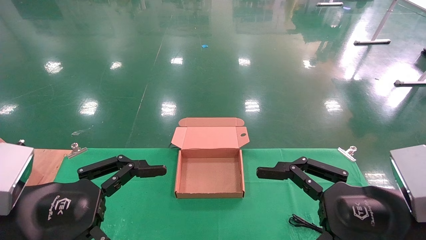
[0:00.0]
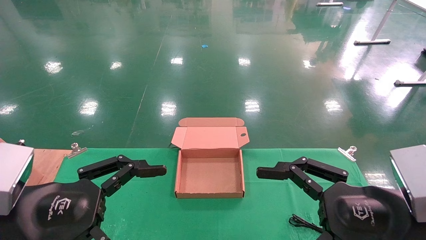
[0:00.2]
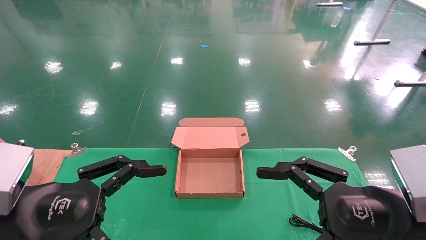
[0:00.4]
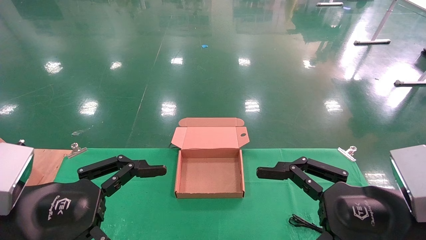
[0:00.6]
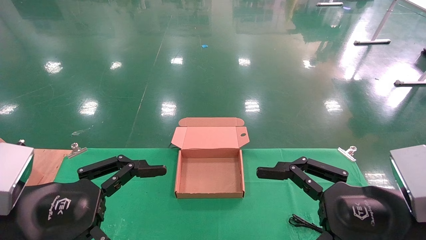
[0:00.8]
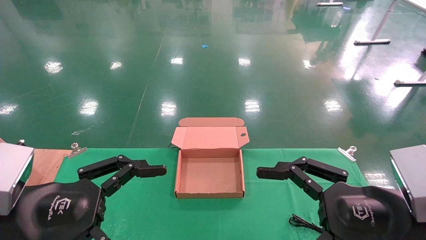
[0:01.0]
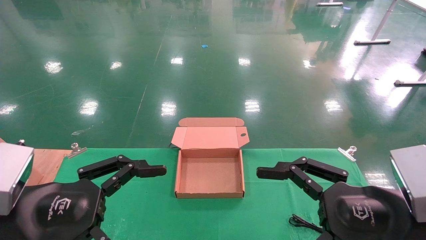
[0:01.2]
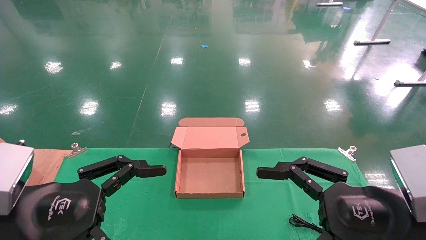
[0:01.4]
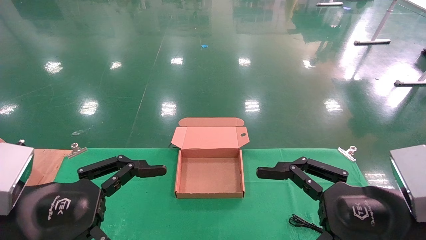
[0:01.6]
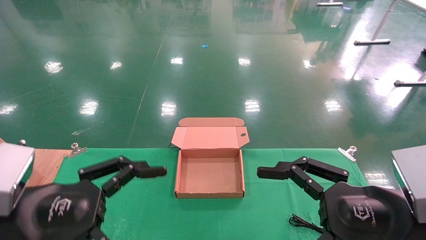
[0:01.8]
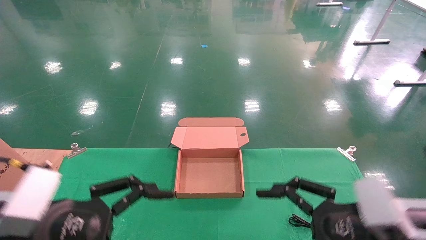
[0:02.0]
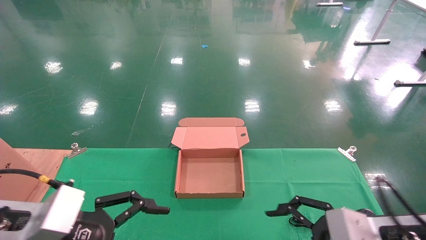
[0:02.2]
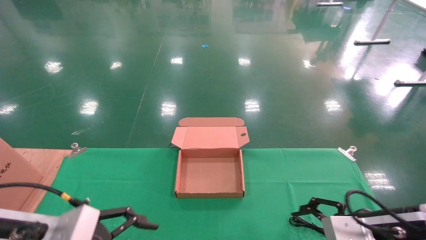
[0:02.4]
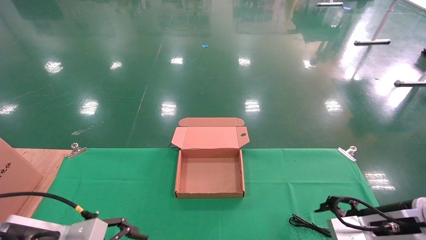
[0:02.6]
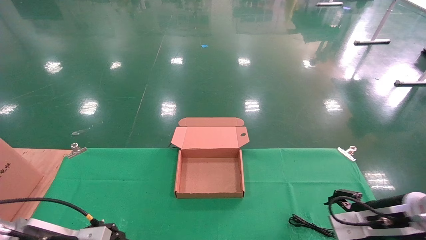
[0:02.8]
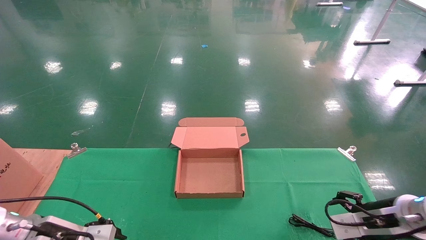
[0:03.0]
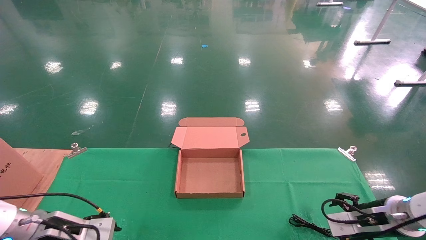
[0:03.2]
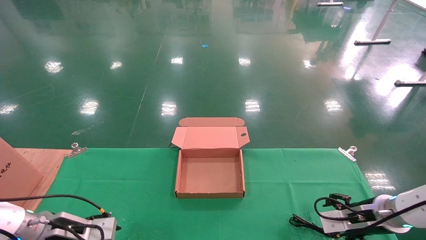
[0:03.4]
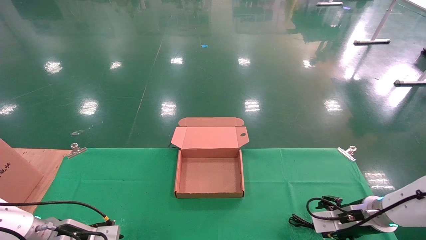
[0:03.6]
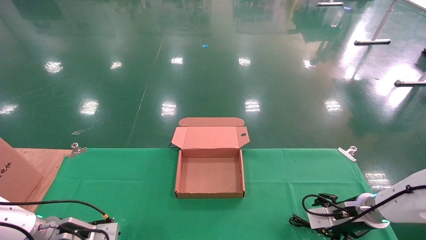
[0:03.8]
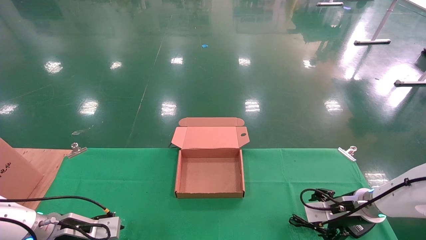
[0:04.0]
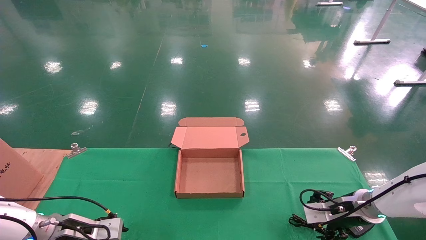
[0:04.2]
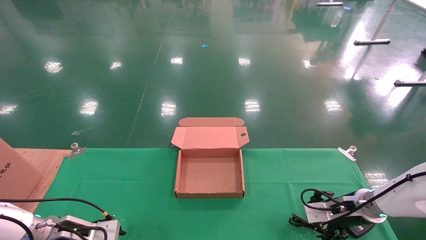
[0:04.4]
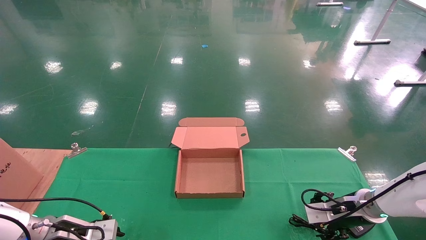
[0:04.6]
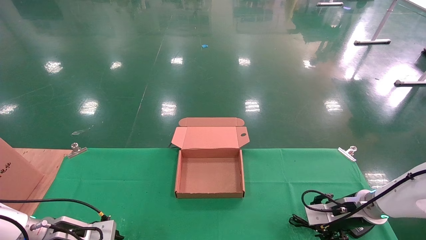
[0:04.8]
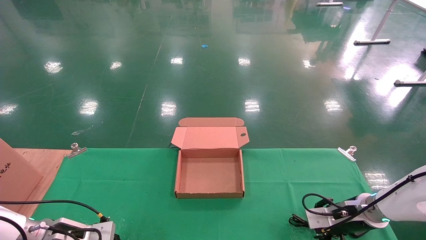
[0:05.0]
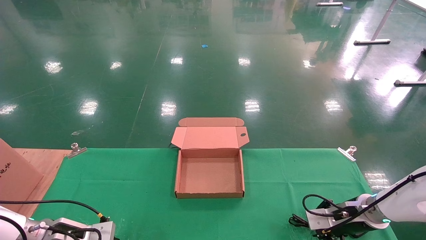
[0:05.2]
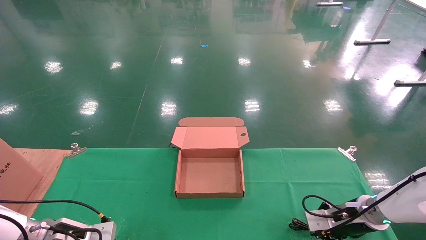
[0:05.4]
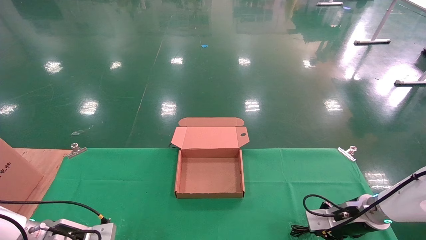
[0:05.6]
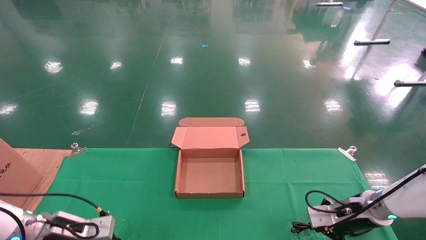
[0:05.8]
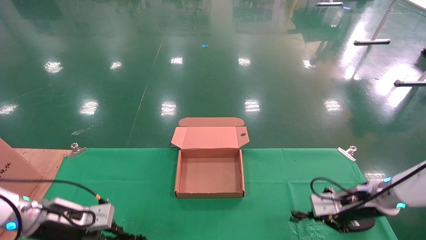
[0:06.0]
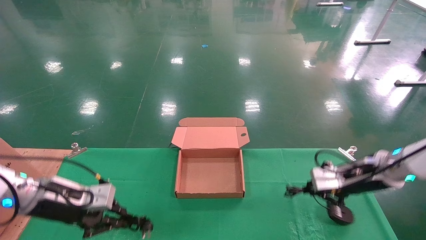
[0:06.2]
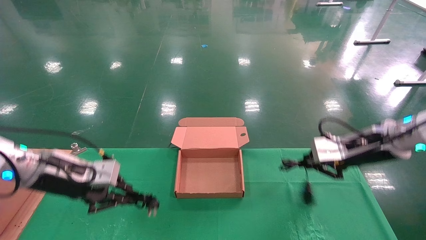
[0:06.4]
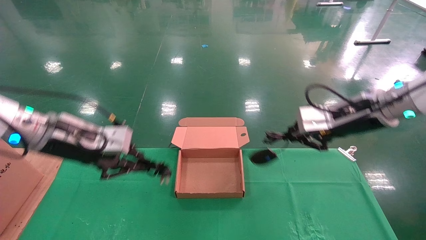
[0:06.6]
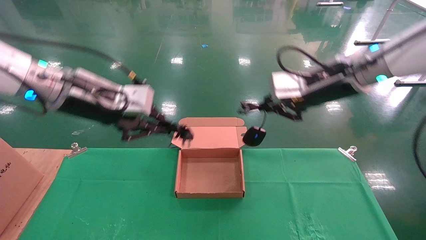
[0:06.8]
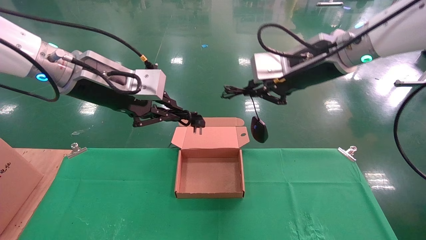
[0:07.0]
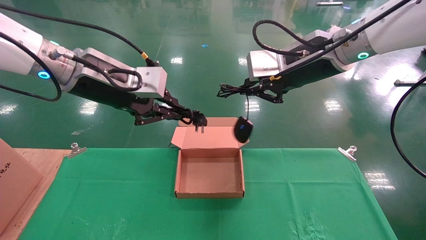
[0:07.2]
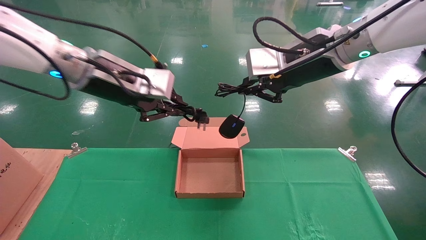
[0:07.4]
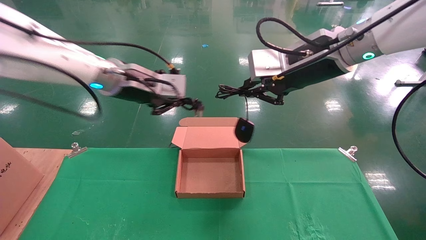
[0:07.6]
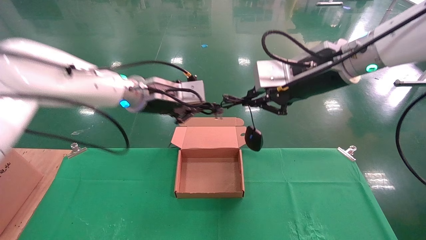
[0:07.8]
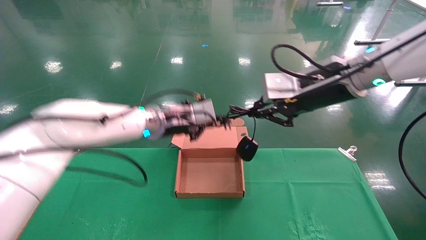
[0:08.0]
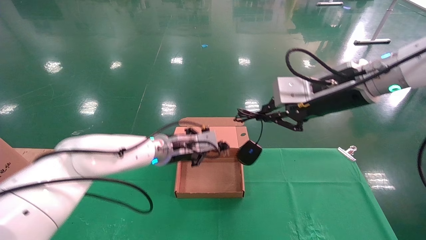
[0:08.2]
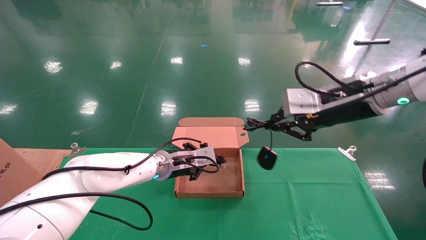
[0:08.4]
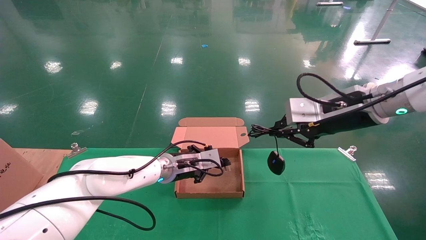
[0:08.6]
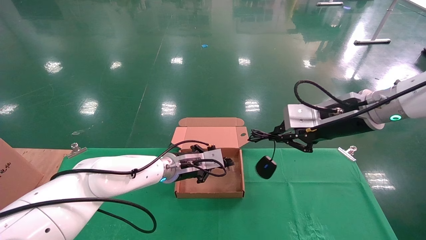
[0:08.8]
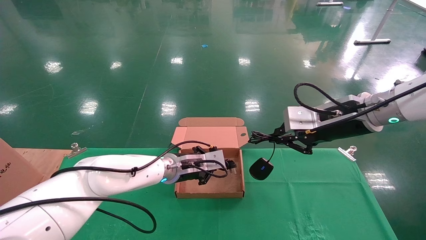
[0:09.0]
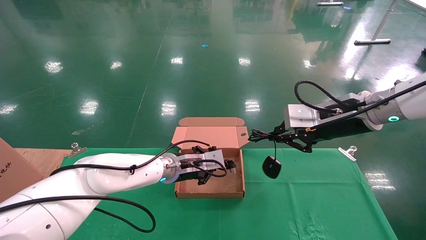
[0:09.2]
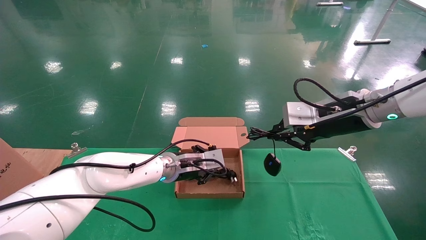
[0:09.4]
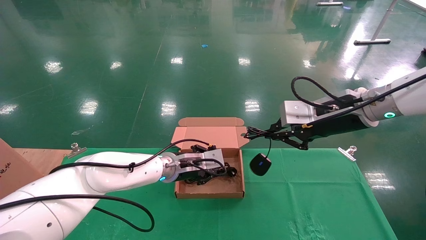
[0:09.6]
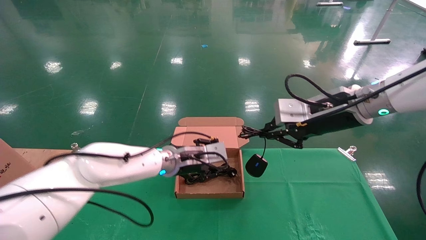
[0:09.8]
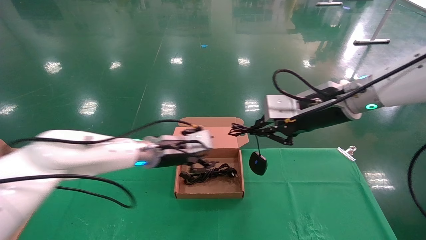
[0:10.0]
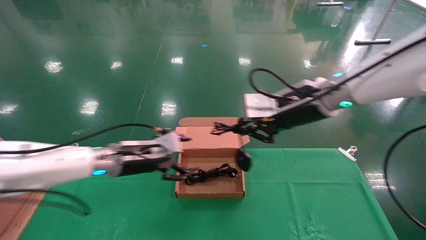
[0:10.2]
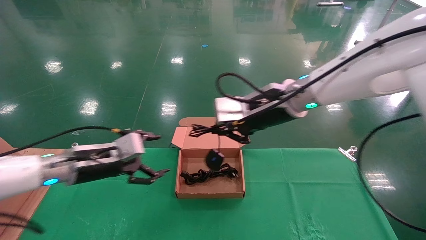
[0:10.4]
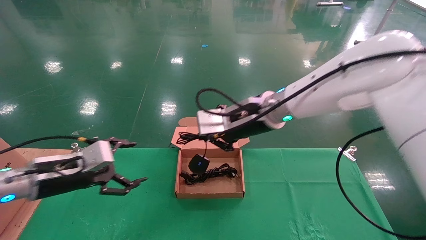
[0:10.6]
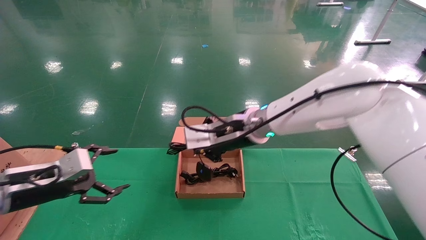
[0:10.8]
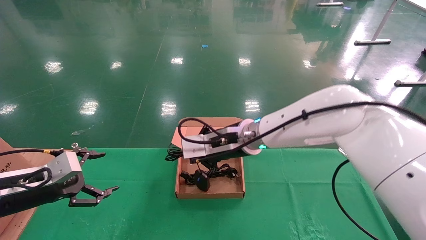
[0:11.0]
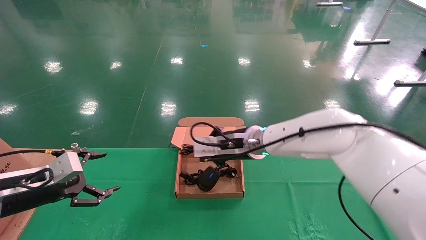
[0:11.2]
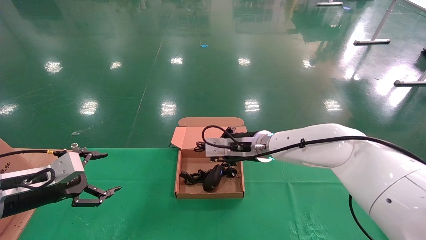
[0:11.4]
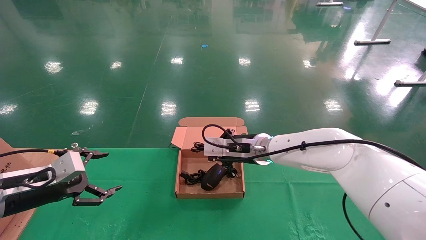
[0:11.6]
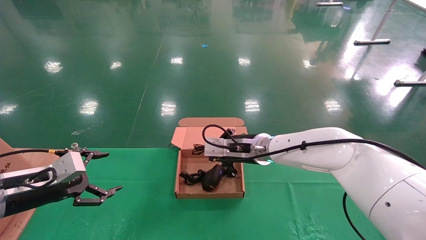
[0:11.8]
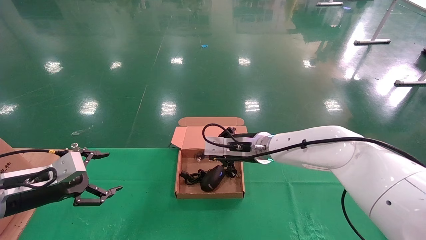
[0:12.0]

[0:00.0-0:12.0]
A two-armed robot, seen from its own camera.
Step, 0:02.4 to 0:06.6: Grab and lift both the mouse and power cord from the accessory packaging area at the same time.
0:00.0 to 0:01.6: The two grippers keep their place.
0:01.6 to 0:03.0: The left gripper shifts about 15 cm downward, forward and to the left; the right gripper shifts approximately 20 cm forward, downward and to the right.
0:03.0 to 0:04.4: The right gripper travels forward by about 10 cm; the left gripper travels forward and downward by roughly 10 cm.
0:04.4 to 0:06.0: The grippers both shift upward by about 5 cm. The left gripper closes up. Meanwhile the right gripper closes its fingers.
0:06.0 to 0:07.6: The left gripper is displaced upward and to the right by approximately 30 cm. The right gripper travels upward and to the left by some 30 cm.
0:07.6 to 0:09.0: The left gripper moves downward, some 20 cm, while the right gripper travels downward and to the right by roughly 10 cm.
0:09.0 to 0:10.4: The left gripper moves to the left and backward, approximately 20 cm, and opens its fingers; the right gripper travels to the left by approximately 15 cm.
0:10.4 to 0:12.0: The left gripper heads to the left, covering approximately 10 cm, while the right gripper travels downward and forward by approximately 15 cm.

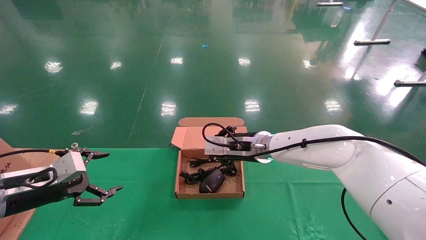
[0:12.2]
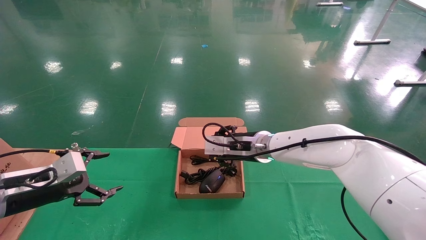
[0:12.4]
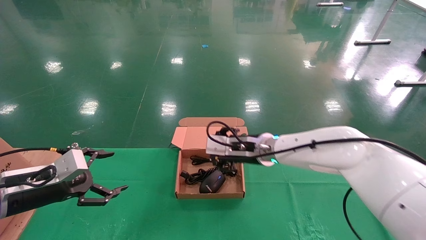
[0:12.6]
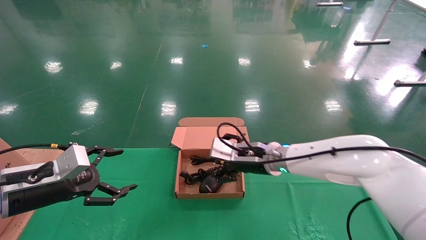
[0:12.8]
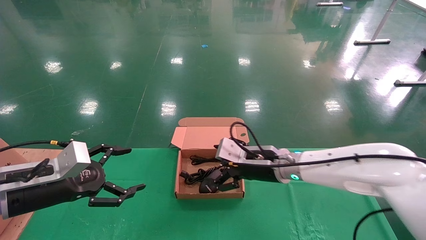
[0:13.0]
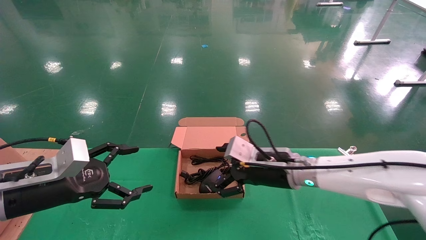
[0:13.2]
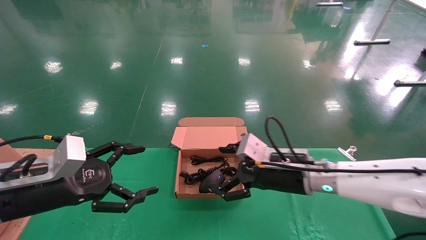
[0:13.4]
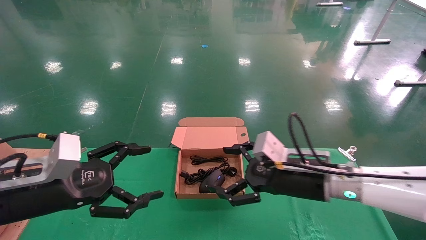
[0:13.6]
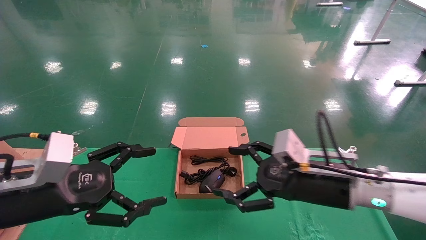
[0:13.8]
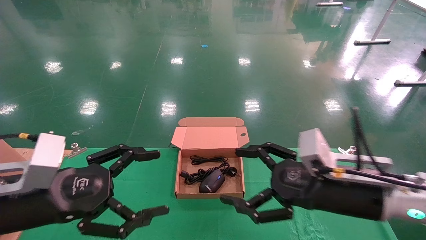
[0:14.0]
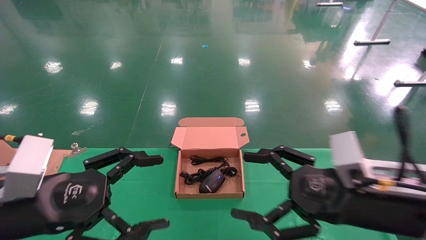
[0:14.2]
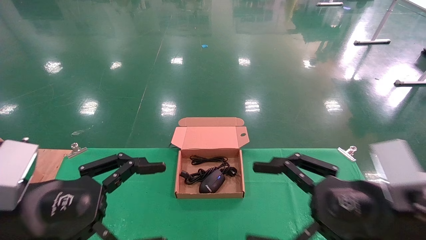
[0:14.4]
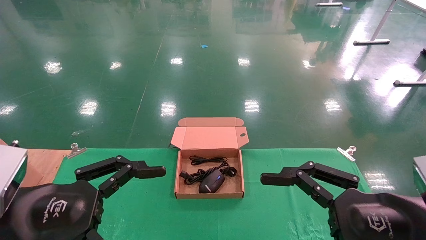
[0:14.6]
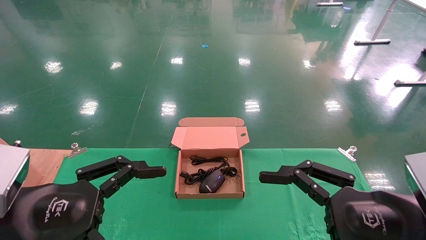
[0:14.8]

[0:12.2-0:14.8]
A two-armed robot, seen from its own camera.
0:12.2 to 0:13.4: The right gripper is displaced backward and to the right by roughly 10 cm, and opens its fingers, while the left gripper moves to the right and backward, some 10 cm.
0:13.4 to 0:14.8: The right gripper is displaced backward and to the right by approximately 20 cm. Meanwhile the left gripper shifts about 10 cm backward.

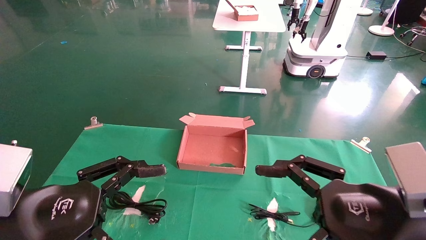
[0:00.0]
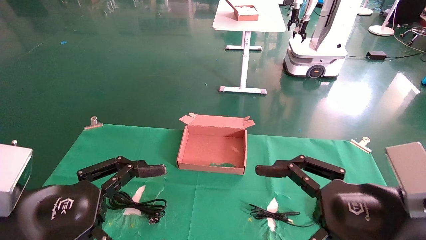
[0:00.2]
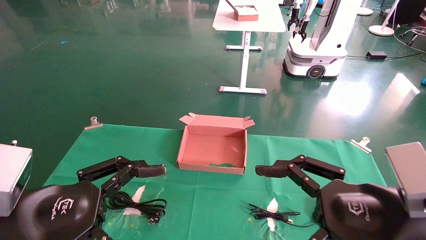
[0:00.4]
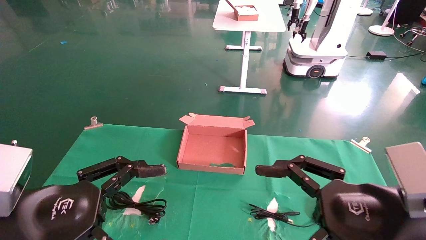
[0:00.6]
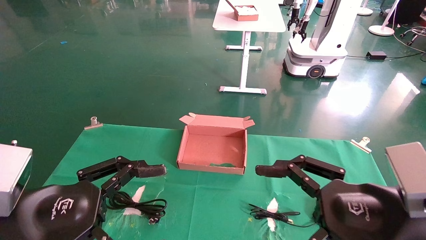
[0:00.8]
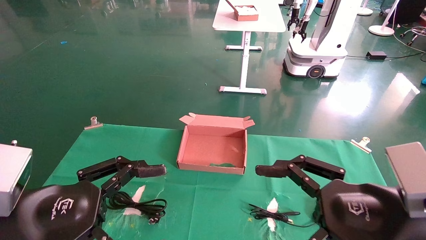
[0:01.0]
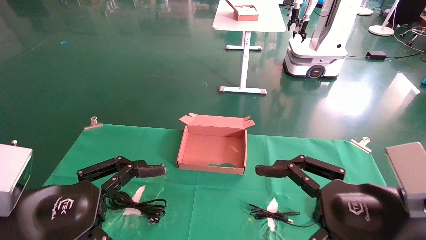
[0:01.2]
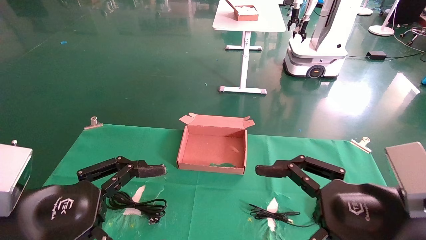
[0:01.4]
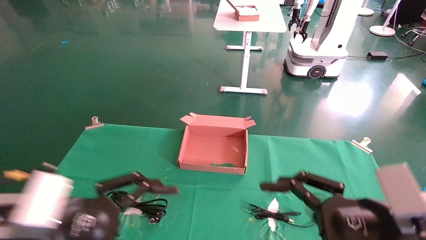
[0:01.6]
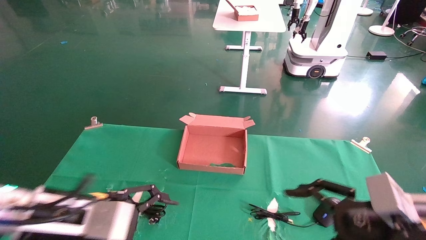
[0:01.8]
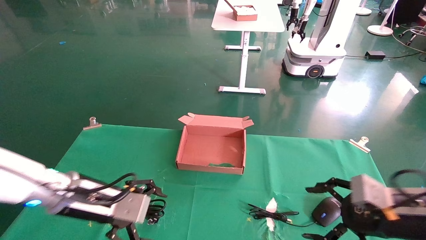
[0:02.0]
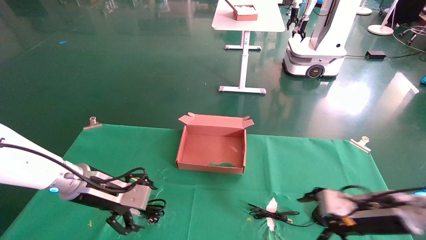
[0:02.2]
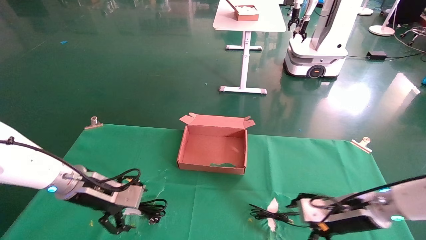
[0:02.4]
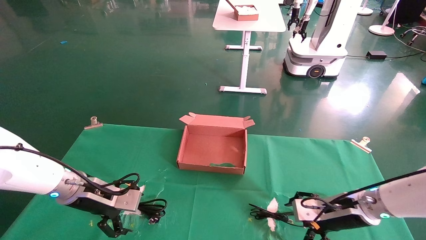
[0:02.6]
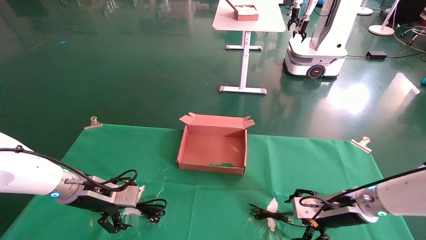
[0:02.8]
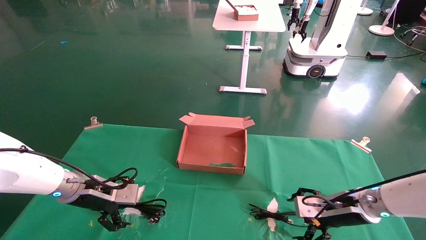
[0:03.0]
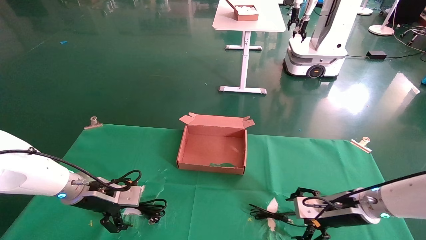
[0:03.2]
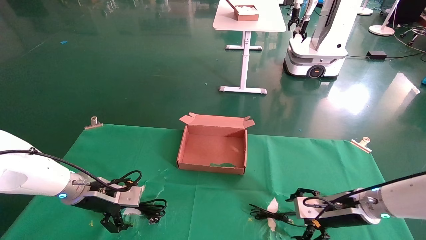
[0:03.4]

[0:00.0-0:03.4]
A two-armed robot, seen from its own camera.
0:01.6 to 0:03.4: The right gripper heads forward and downward, covering some 20 cm, while the left gripper heads forward, covering roughly 20 cm.
